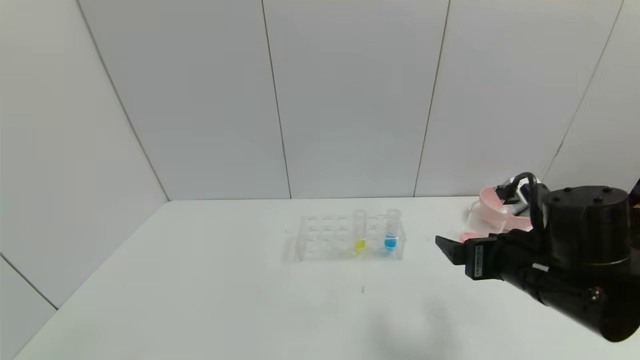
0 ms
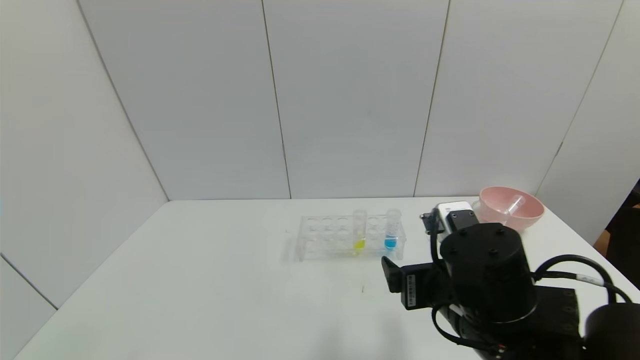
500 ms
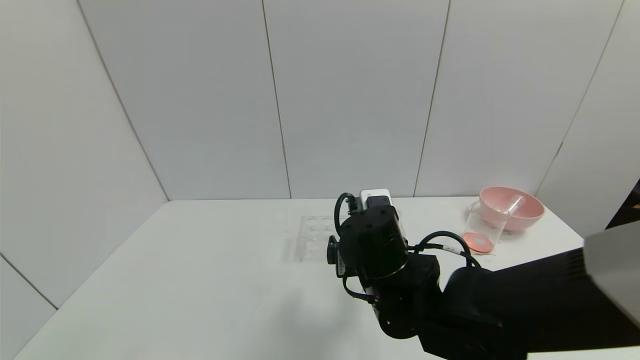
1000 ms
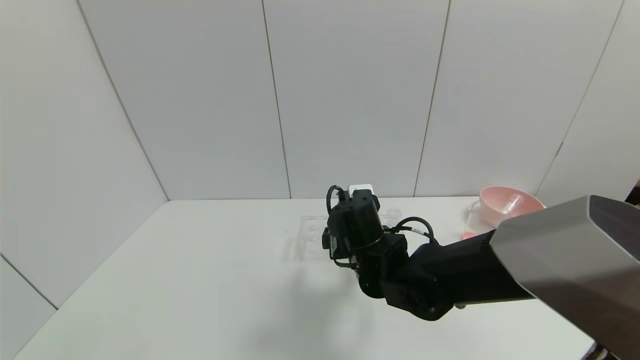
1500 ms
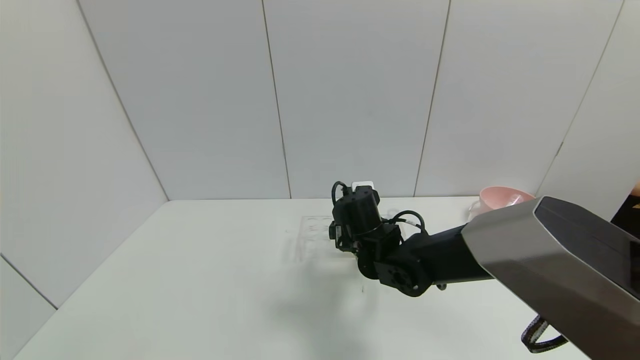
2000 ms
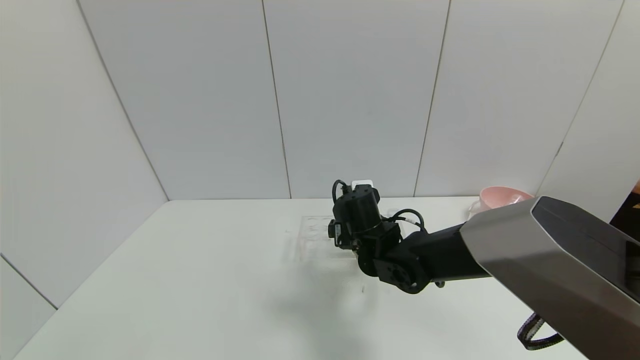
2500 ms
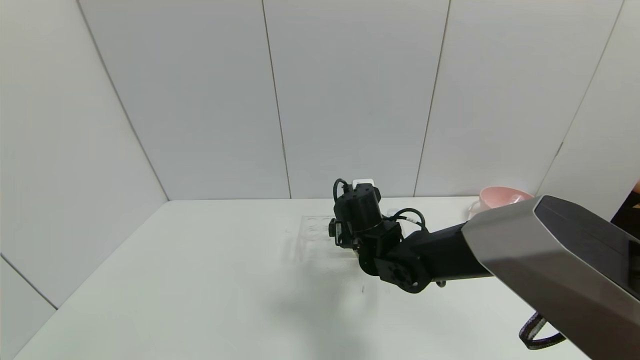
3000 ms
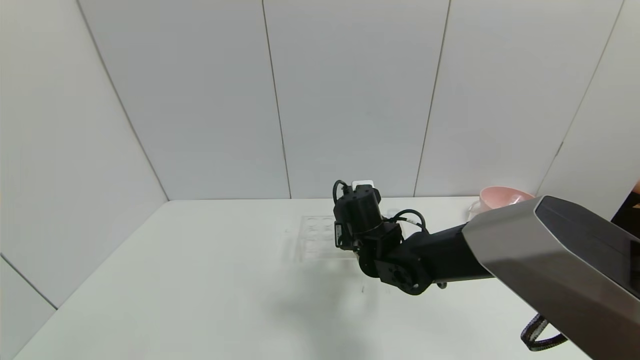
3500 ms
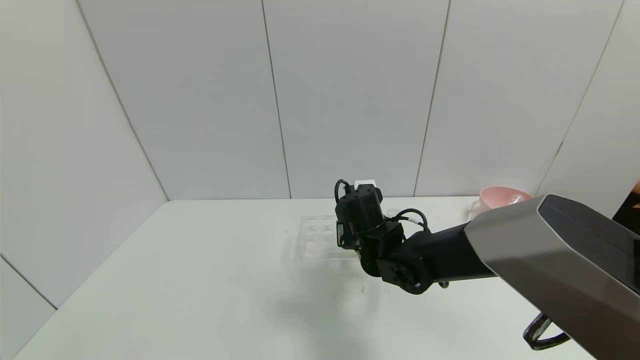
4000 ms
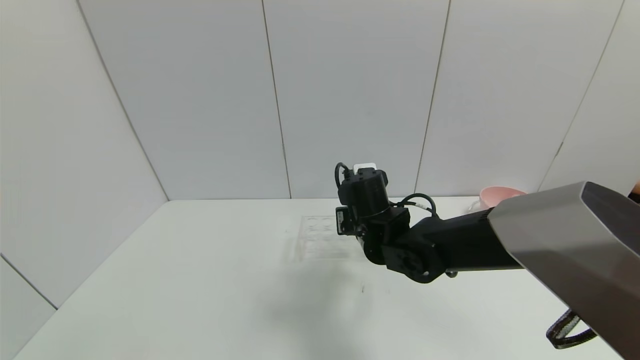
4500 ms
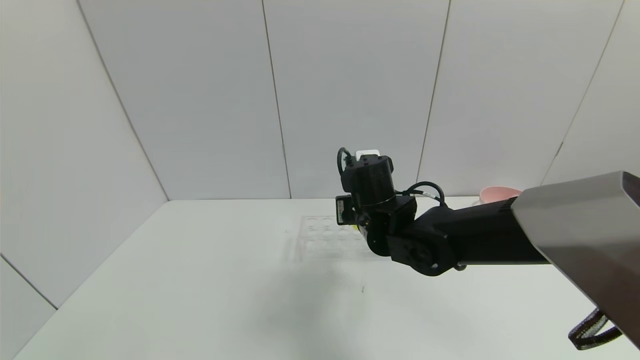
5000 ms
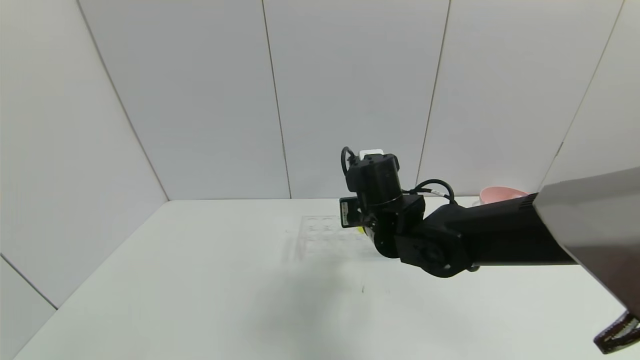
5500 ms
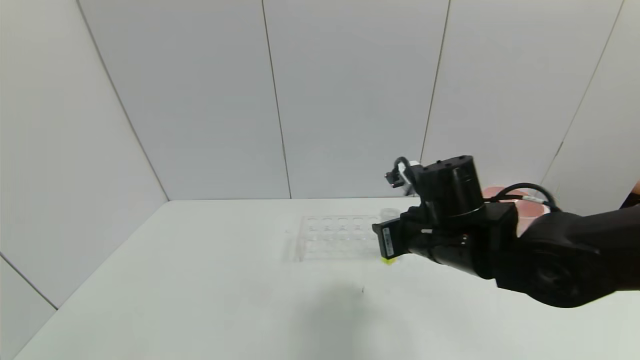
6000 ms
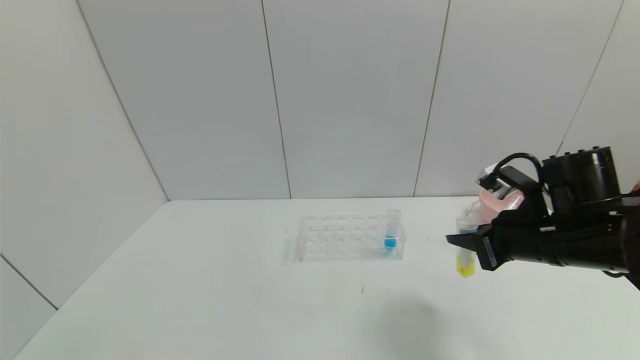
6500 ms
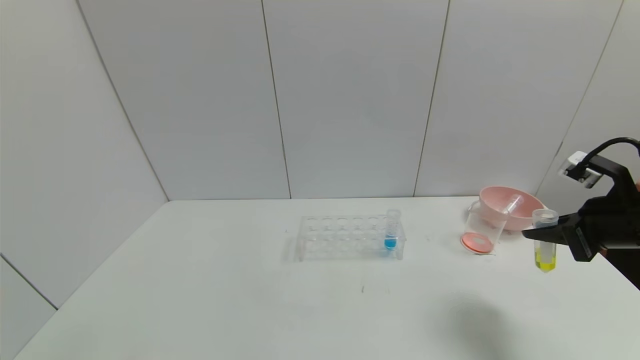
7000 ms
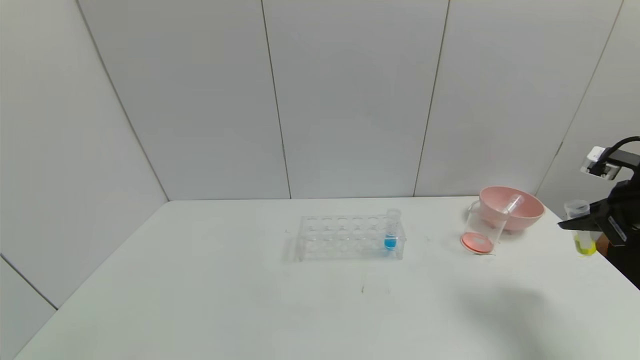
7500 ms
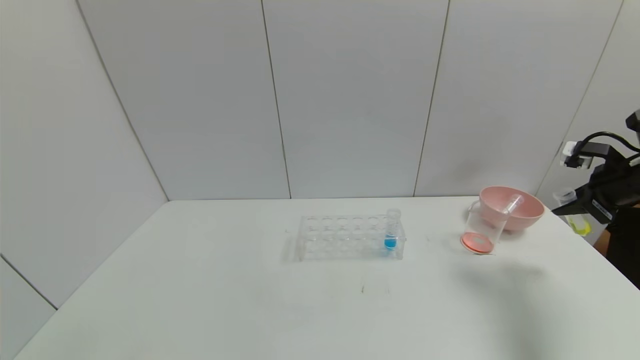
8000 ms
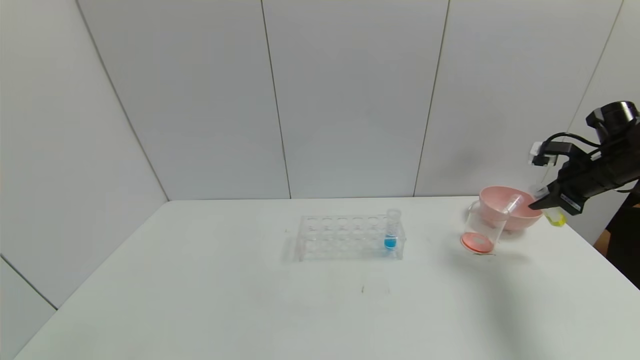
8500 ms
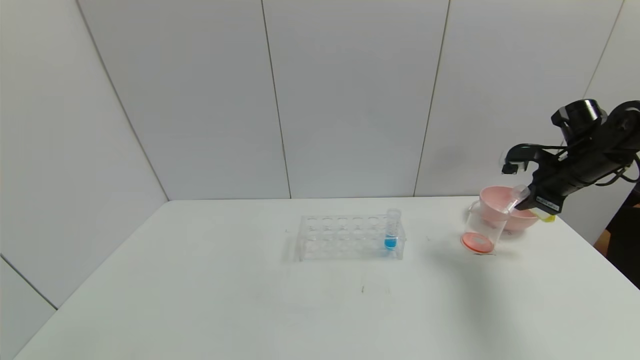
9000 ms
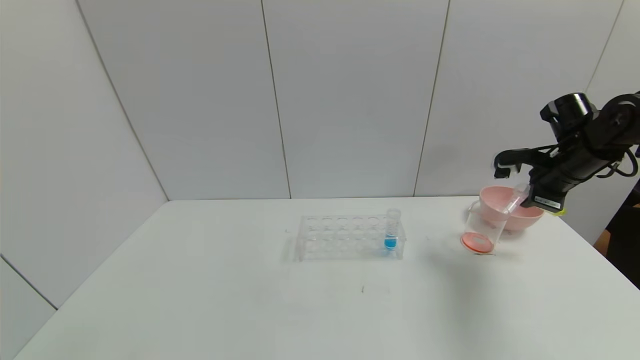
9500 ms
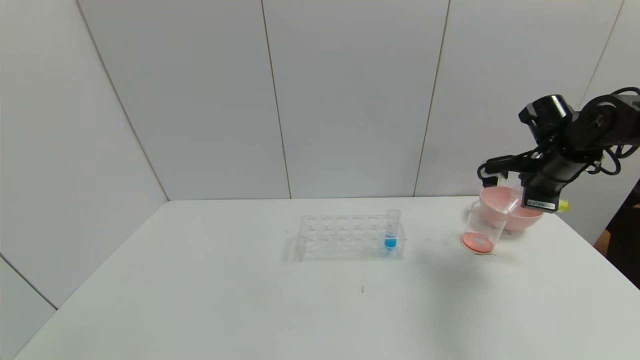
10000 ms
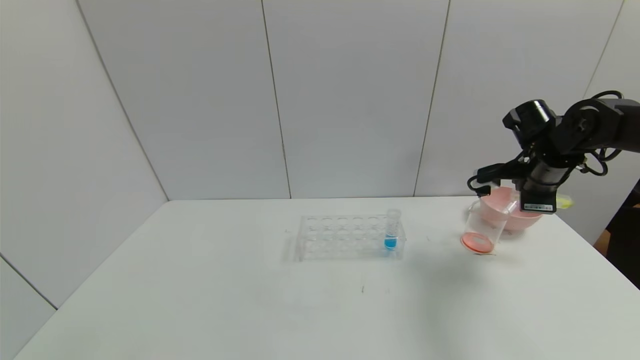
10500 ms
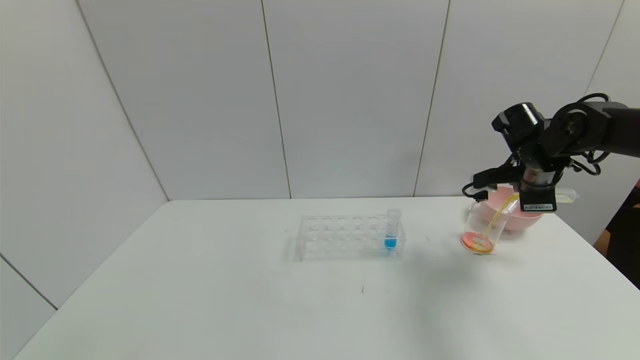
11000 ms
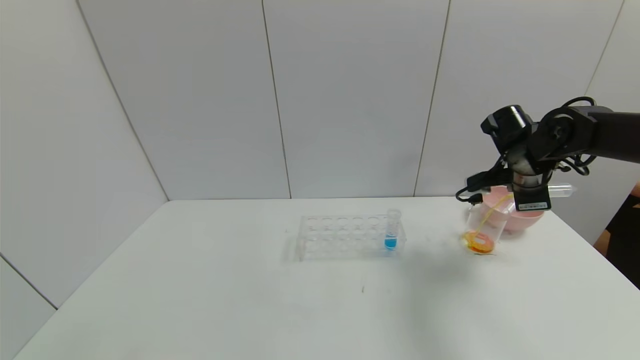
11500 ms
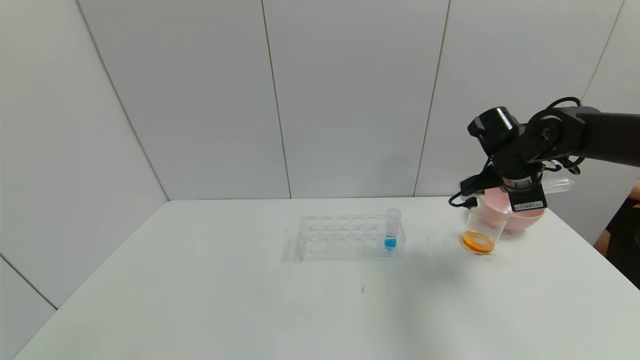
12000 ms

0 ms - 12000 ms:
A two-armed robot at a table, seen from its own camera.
Task of the whole recording: pick up the test tube with yellow pigment and the test tube with red pigment by grippers and pour them into the beaker.
Step, 0 ms - 2000 ms: Grasp the yellow reagent with the right gripper.
Step, 2500 ms - 11500 ms: Pour the yellow reagent into the graduated cylinder with the right gripper.
0 ms - 2000 ms: The right gripper heads to the left, forward and downward, covering about 25 cm.
2000 ms - 4000 ms: The right gripper closes its fingers.
4000 ms - 6000 ms: The right gripper heads to the right, upward and backward, covering roughly 15 cm.
6000 ms - 8000 ms: The right gripper shifts about 30 cm to the right.
8000 ms - 10000 ms: The right gripper is displaced to the left by about 10 cm.
10000 ms - 12000 ms: The right gripper goes about 5 cm to the left.

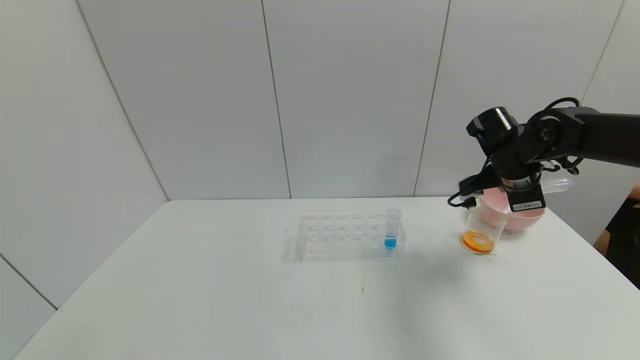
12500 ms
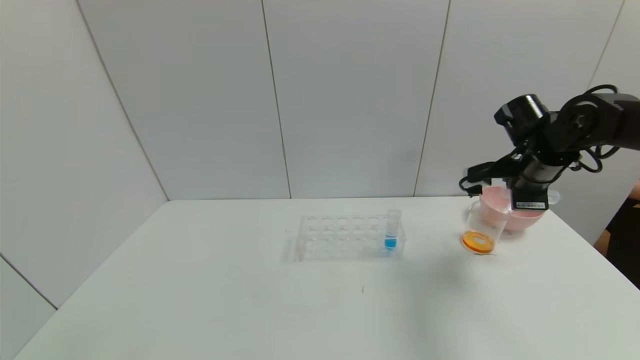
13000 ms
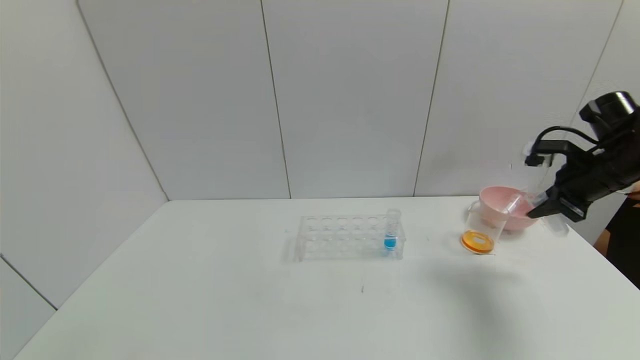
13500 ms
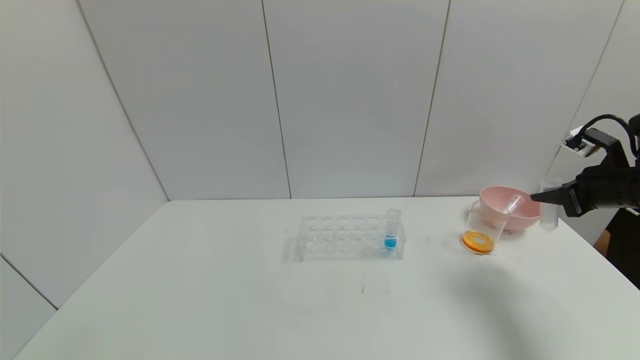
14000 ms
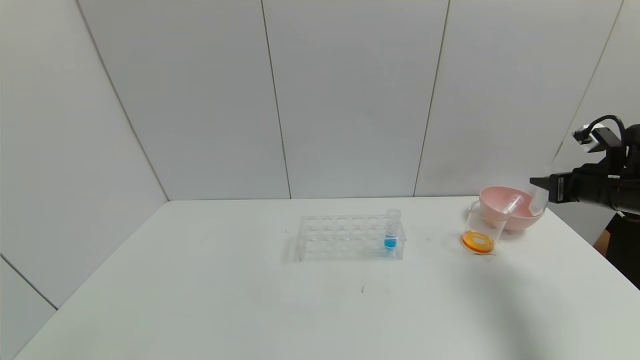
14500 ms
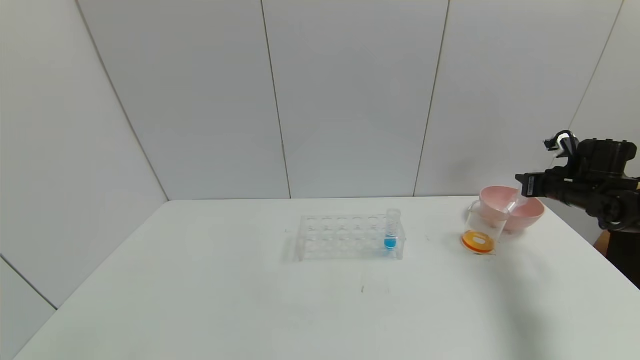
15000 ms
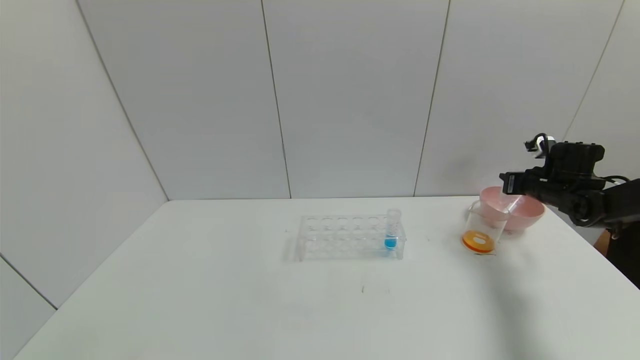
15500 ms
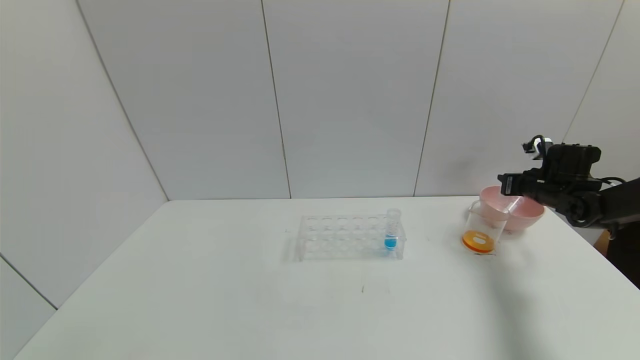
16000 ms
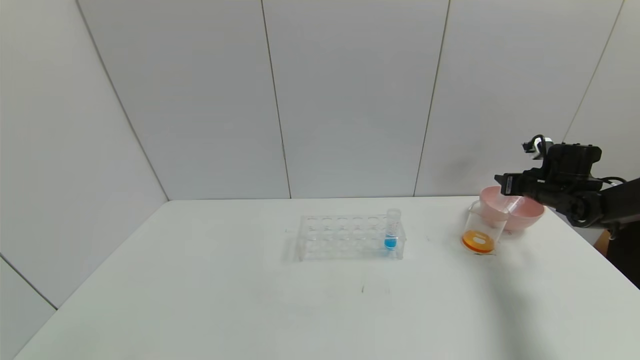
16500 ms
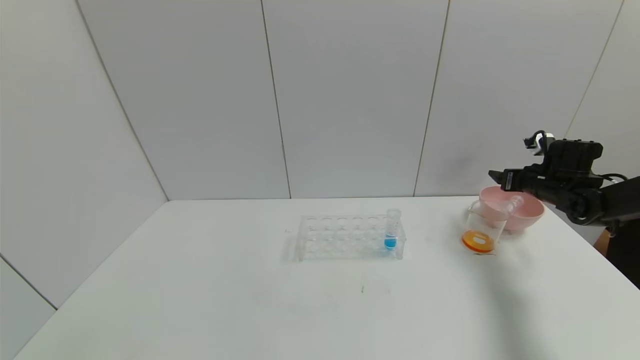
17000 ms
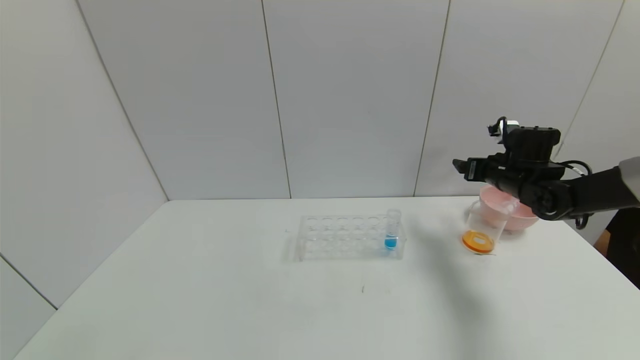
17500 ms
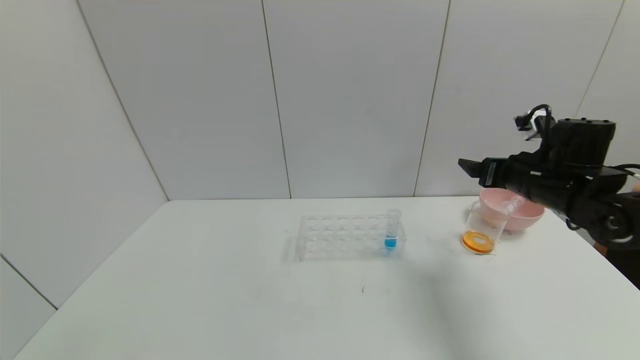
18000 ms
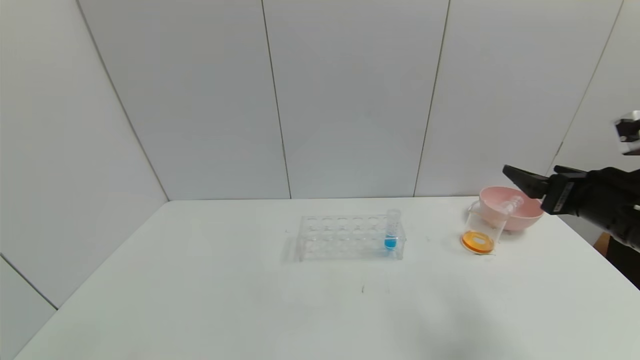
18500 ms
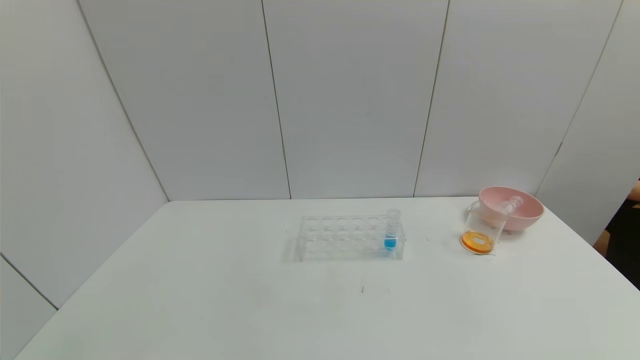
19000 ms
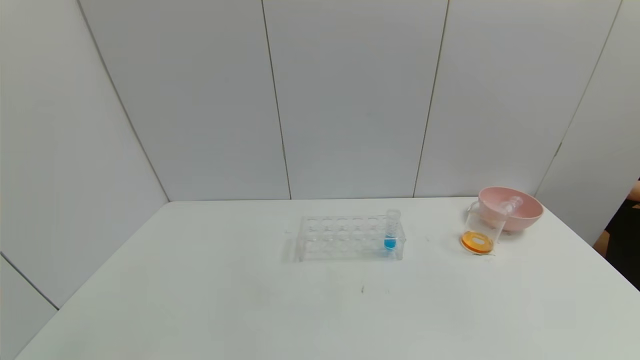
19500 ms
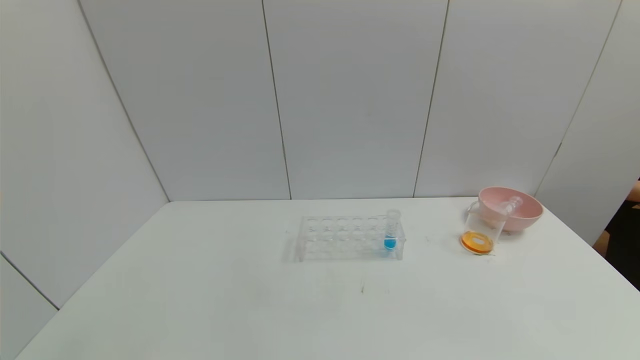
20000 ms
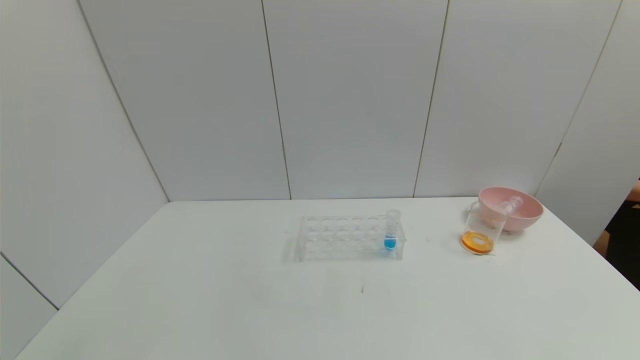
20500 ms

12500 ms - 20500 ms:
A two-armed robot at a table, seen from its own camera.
Task of the whole recording: pick up the test tube with yellow pigment and the test tube with red pigment by grippers and pour them into the beaker.
Step, 12500 ms - 16500 ms: Place the test tube into the pink bowl with the right gripper.
12500 ms - 14500 ms: The right gripper moves to the right, about 15 cm.
14500 ms - 16500 ms: The right gripper moves forward and downward, roughly 10 cm.
16500 ms - 18500 ms: The right gripper heads backward, to the left and upward, covering roughly 25 cm, and opens.
18500 ms - 20500 ms: The right gripper is displaced backward and downward by approximately 30 cm.
